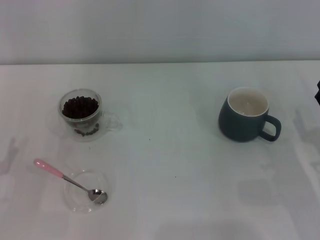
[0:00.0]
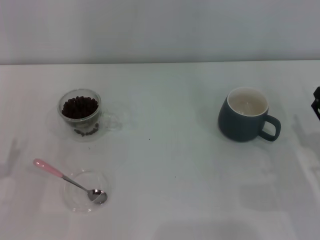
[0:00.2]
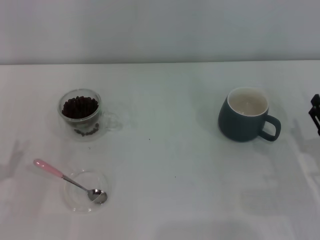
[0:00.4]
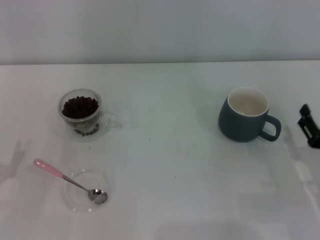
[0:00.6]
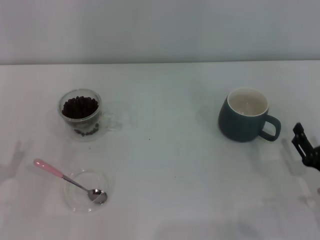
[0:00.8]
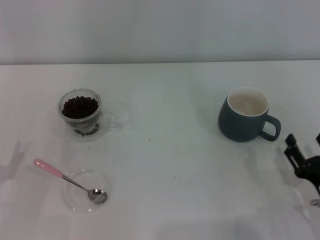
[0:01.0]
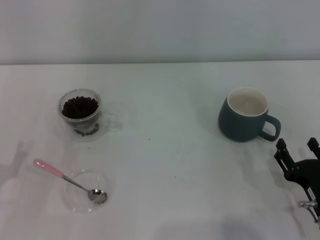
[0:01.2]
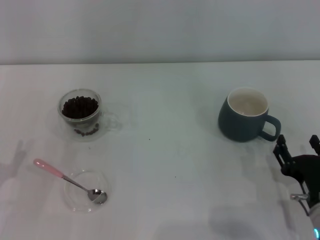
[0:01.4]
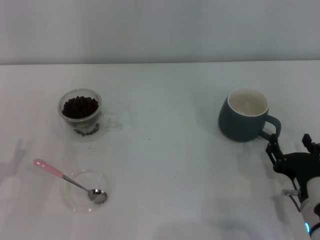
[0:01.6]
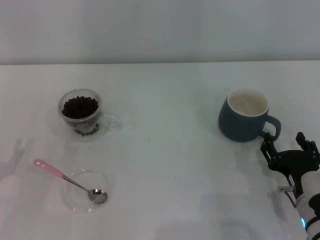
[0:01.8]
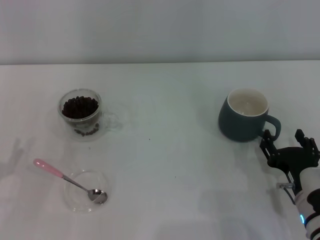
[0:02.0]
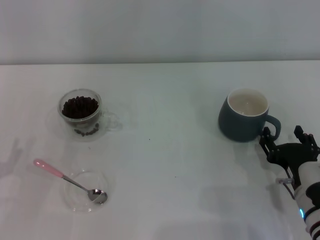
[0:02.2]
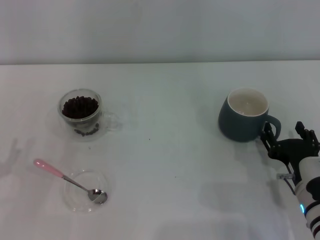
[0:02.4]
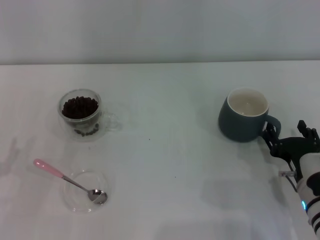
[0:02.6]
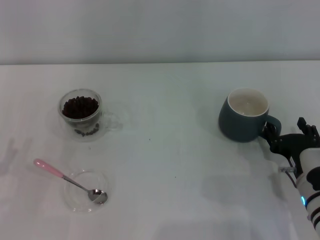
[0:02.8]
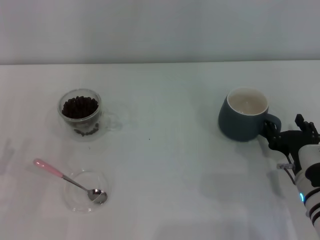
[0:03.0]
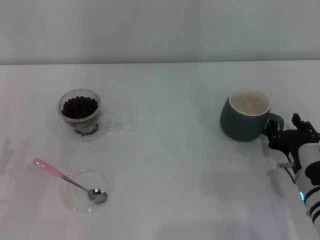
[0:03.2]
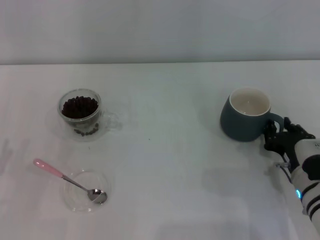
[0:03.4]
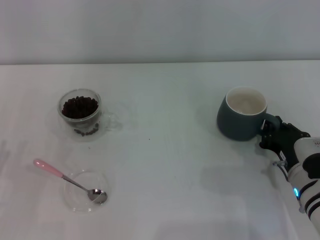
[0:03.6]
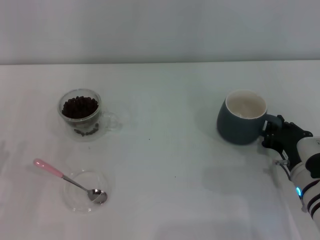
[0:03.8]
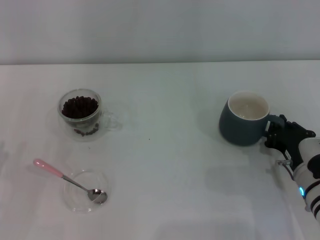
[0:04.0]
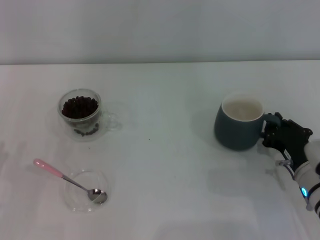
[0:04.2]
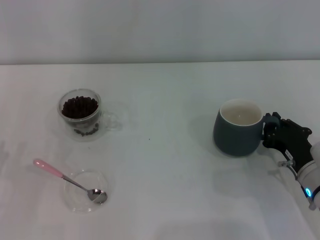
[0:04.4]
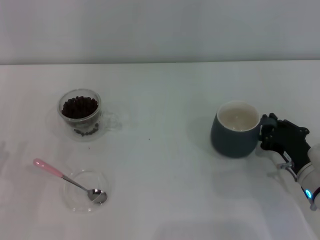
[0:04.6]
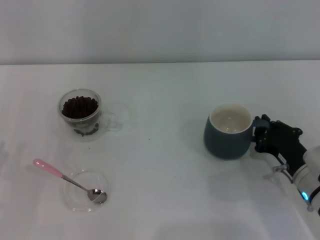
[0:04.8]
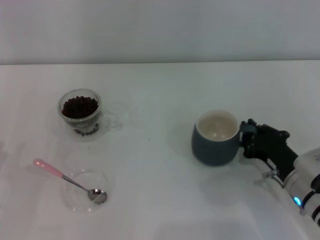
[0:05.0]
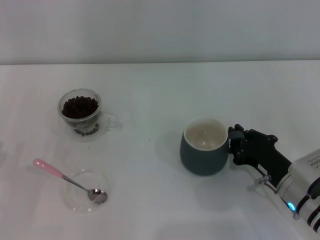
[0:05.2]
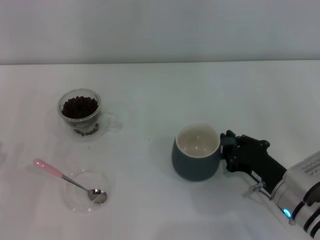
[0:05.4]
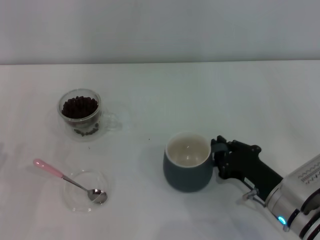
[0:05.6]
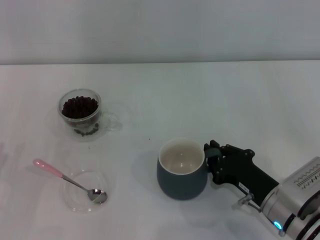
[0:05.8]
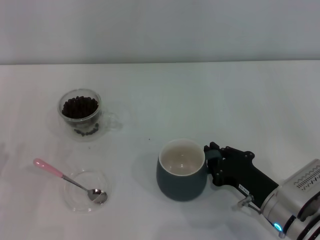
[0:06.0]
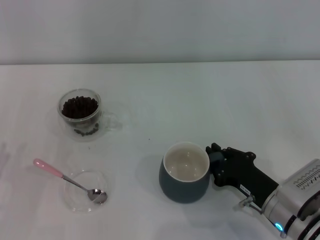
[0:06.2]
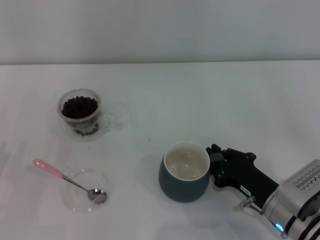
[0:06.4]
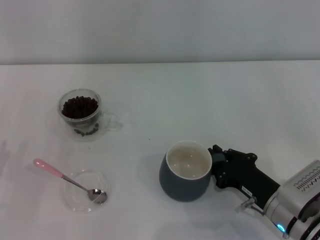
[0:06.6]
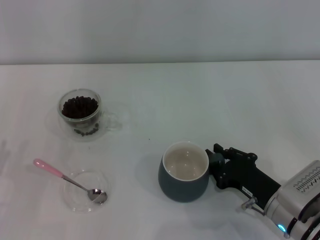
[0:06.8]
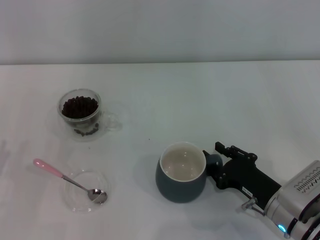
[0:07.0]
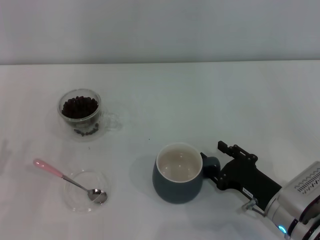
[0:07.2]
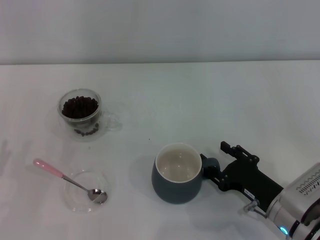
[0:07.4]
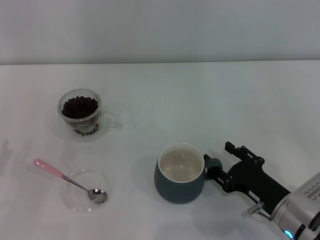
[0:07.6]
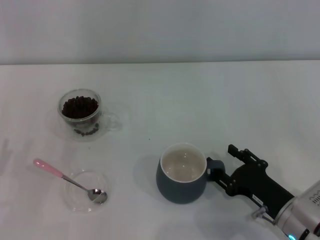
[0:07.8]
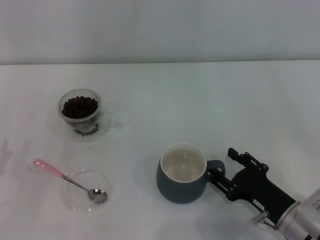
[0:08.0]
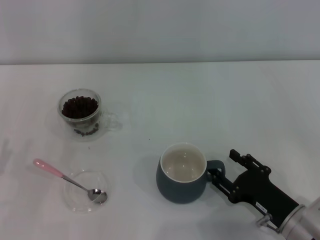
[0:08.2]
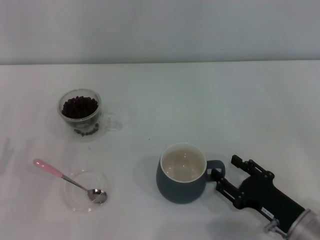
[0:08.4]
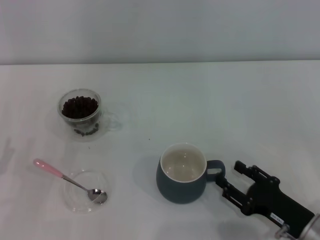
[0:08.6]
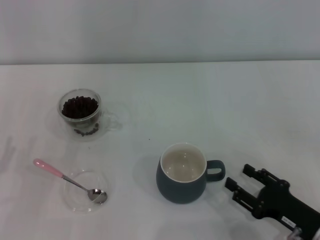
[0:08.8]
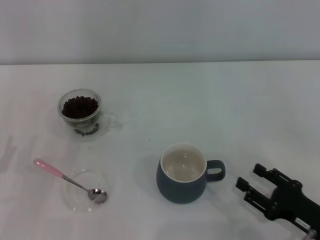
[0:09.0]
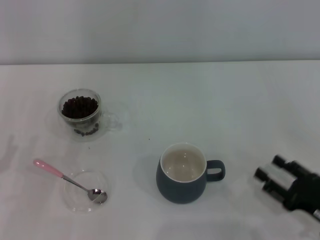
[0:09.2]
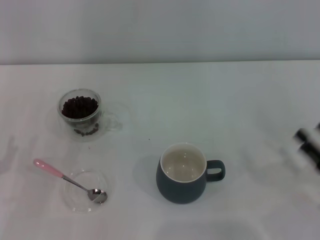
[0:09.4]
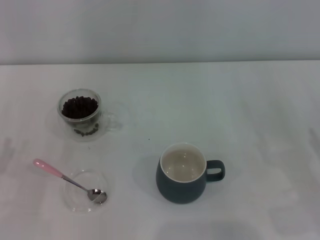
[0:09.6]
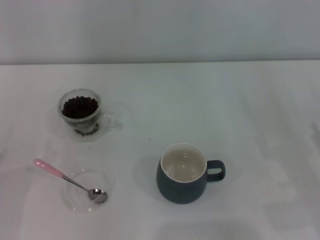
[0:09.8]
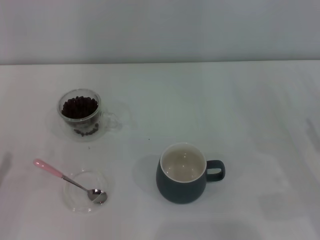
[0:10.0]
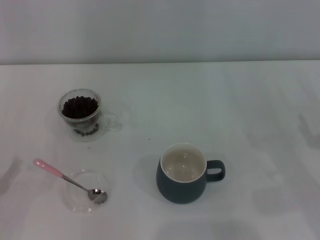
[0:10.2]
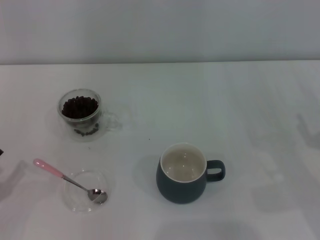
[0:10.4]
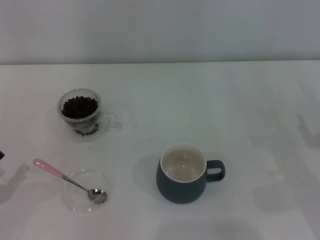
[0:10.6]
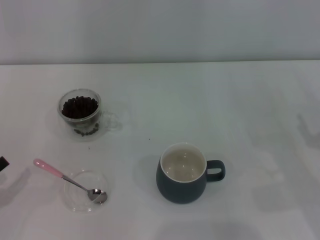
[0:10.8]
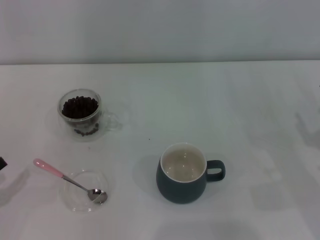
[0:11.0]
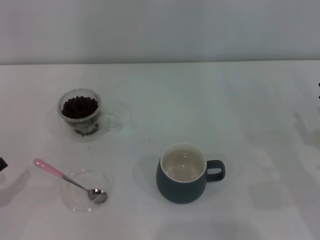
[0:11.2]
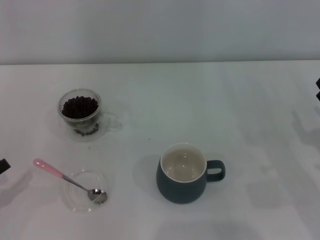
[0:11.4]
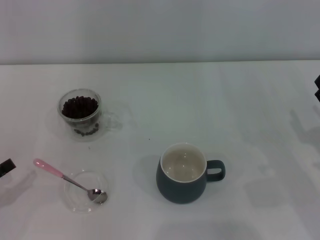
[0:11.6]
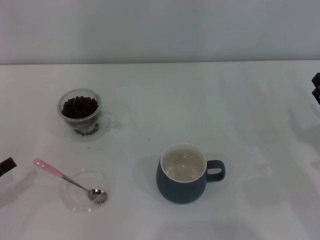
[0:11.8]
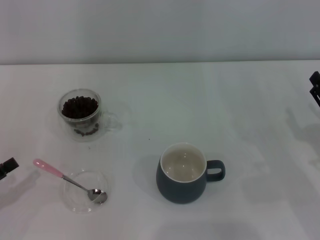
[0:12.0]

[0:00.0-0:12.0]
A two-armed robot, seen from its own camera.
Task of the whole recording: Use a pink spoon to take out the coffee beans from the glass and pour them into the gray cup.
Step, 0:00.0 to 0:08.8: Move the cup to the center of view with the left gripper.
0:00.0 to 0:01.6: The right gripper travels to the left by some 10 cm.
0:01.6 to 0:03.0: The grippers make only small movements.
0:03.0 to 0:04.4: The right gripper closes.
0:04.4 to 0:06.0: The right gripper heads to the left, covering about 5 cm.
0:06.0 to 0:07.6: The right gripper opens up.
0:07.6 to 0:09.0: The right gripper travels to the right by some 5 cm.
0:09.0 to 0:10.4: The right gripper heads forward and to the right, covering some 10 cm.

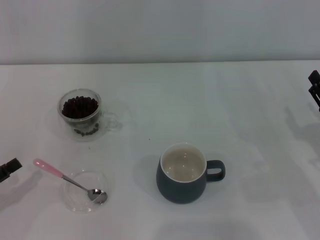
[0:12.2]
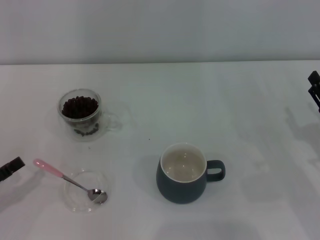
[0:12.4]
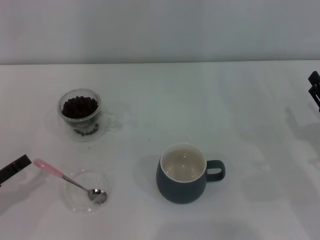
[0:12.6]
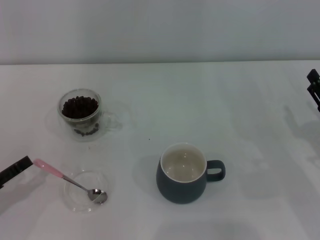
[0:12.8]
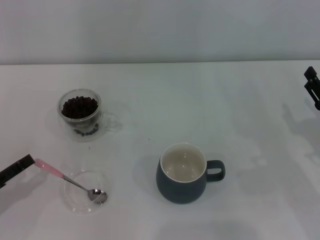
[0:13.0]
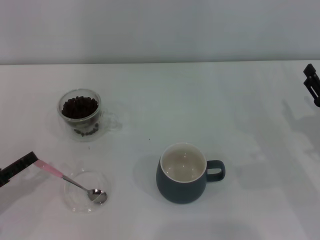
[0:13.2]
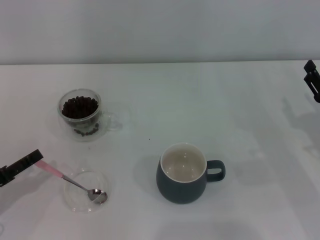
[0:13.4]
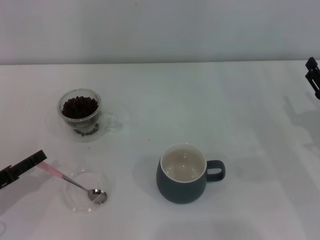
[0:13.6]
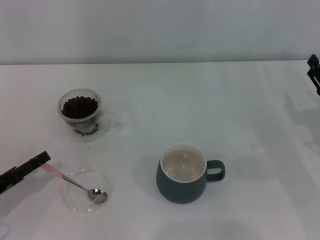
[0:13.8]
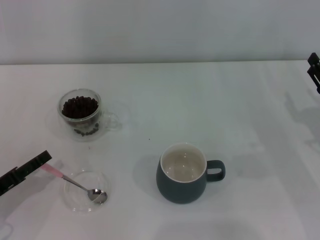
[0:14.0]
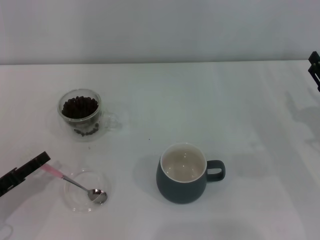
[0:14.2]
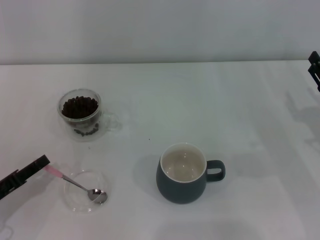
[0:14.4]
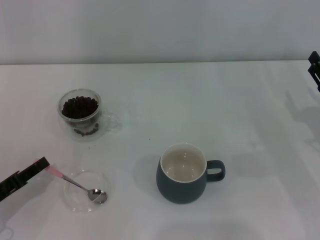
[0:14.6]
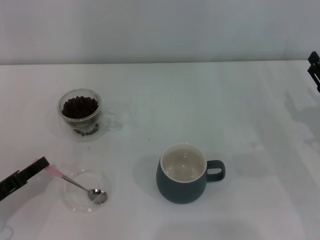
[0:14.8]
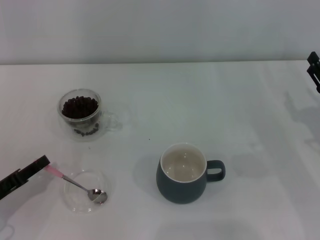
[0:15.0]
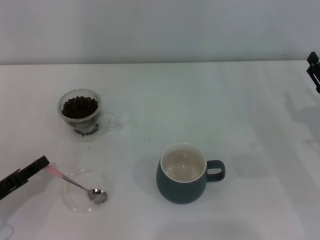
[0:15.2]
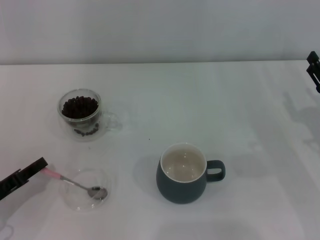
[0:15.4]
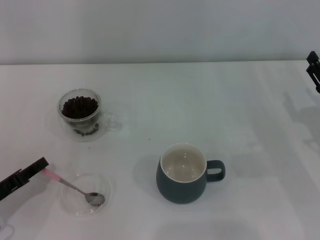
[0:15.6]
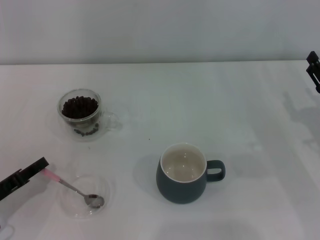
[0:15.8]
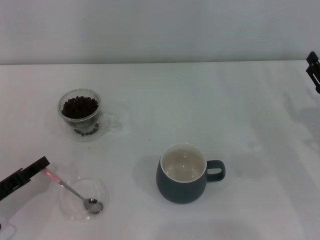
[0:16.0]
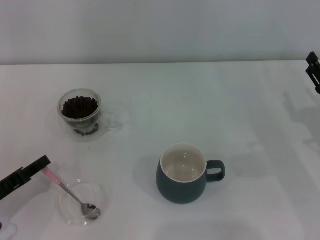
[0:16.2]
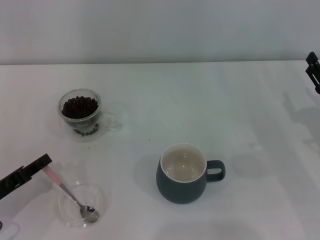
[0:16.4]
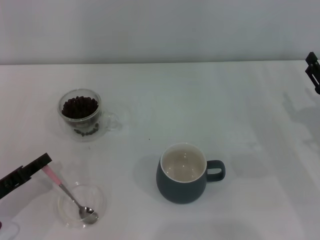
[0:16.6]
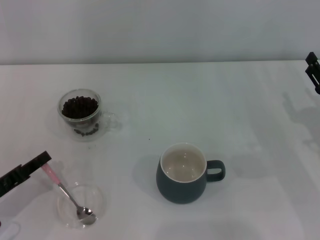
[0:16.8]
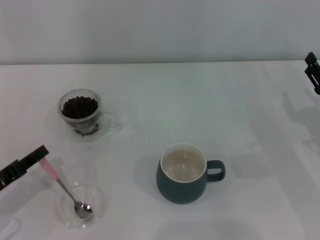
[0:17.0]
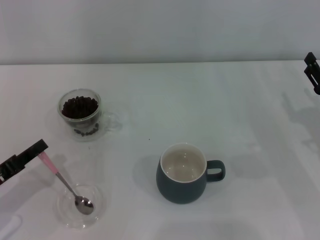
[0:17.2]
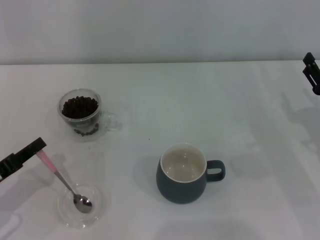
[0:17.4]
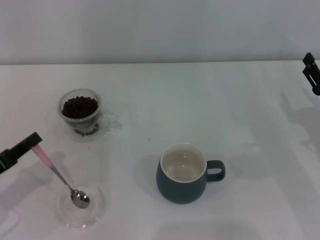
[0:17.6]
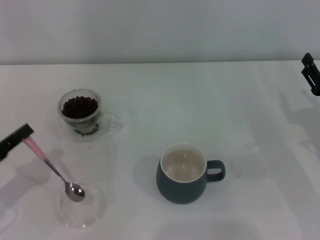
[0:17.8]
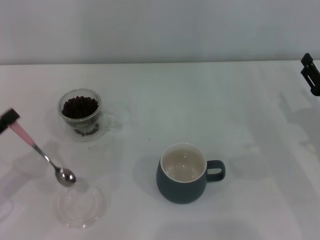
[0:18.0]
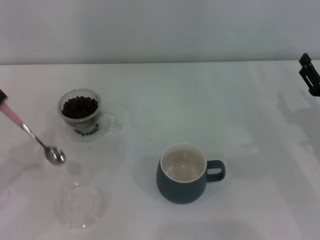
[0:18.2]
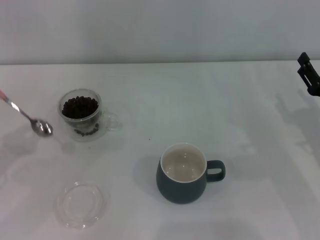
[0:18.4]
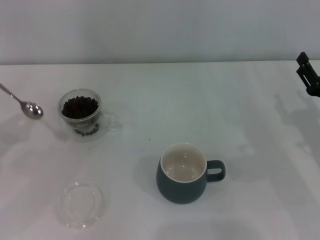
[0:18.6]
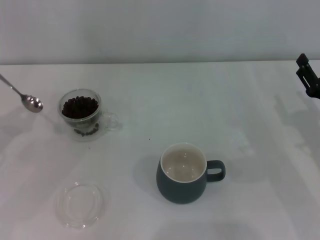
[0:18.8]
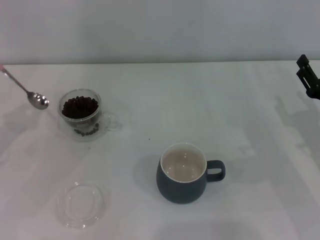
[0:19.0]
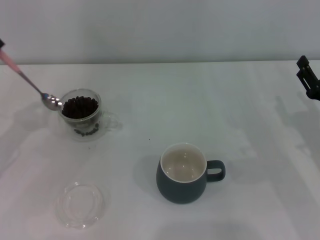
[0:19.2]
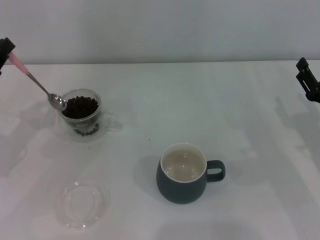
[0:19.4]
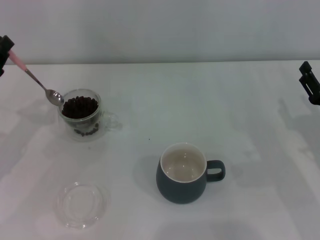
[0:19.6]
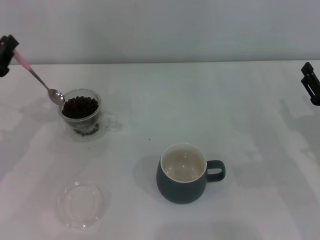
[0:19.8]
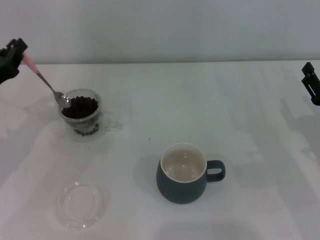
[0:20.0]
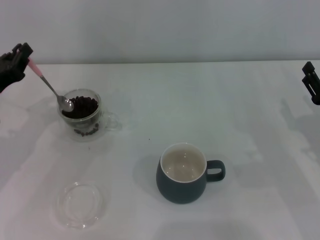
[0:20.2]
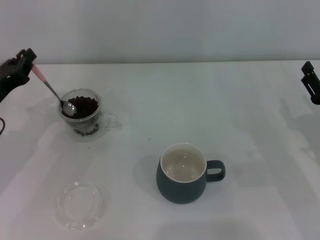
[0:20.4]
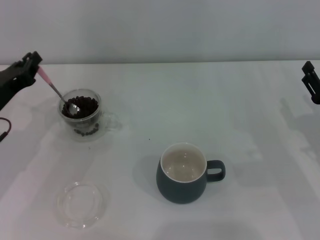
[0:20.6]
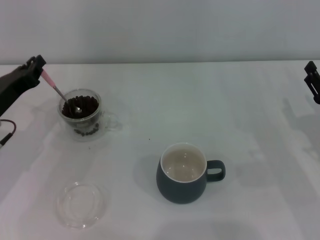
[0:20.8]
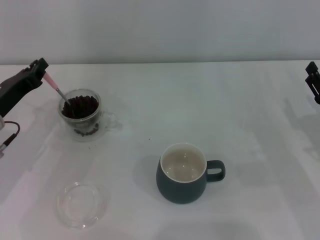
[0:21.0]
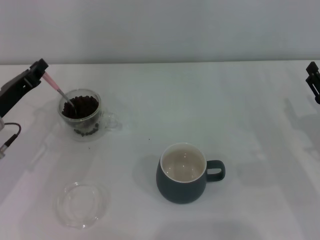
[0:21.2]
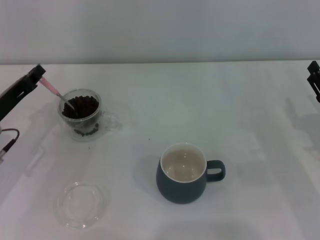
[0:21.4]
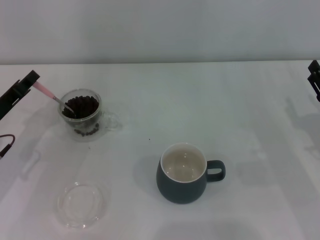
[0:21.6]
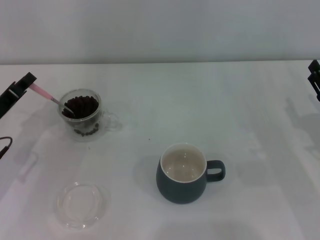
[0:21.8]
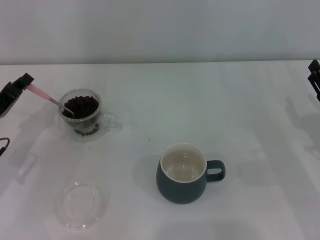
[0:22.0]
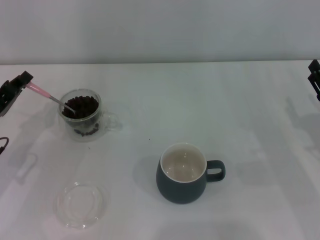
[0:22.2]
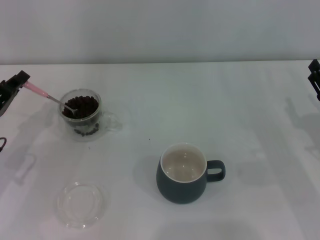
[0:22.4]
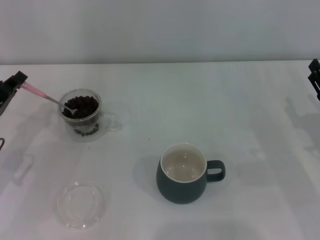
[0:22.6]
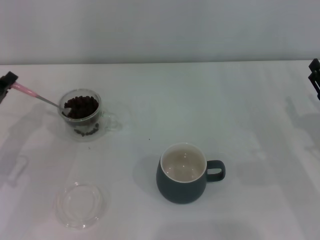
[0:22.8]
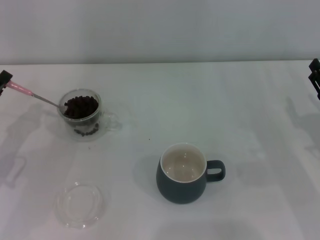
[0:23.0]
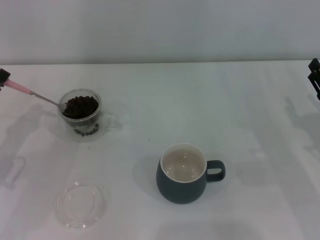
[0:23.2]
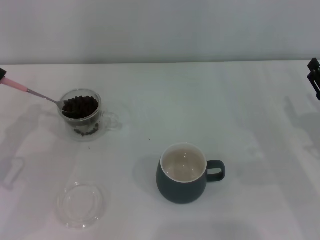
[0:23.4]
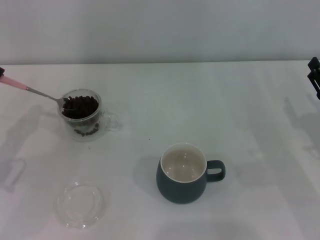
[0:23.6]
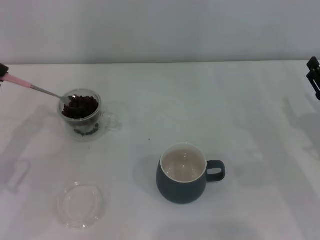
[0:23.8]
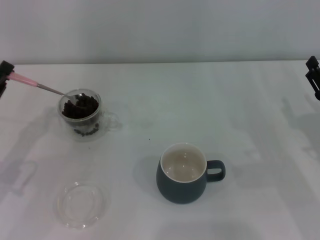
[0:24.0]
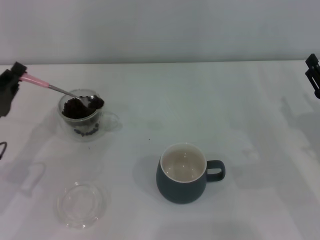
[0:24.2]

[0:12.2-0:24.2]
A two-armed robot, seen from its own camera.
Task of the whole recording: Use a pink spoon to take out the coffee beans from the glass and pour them into the gray cup.
Step, 0:12.2 to 0:17.8: Pick up the spoon with the right gripper.
0:12.2 to 0:13.8: The left gripper shifts by approximately 5 cm.
0:13.8 to 0:15.2: The left gripper closes its fingers.
0:15.2 to 0:16.6: Neither gripper changes place.
0:16.6 to 0:18.2: The left gripper goes approximately 5 cm upward.
0:18.2 to 0:19.8: The left gripper goes some 10 cm forward.
0:19.8 to 0:21.2: The left gripper moves approximately 5 cm.
0:21.2 to 0:22.6: The grippers move only a little.
0:22.6 to 0:24.2: The grippers make only small movements.
